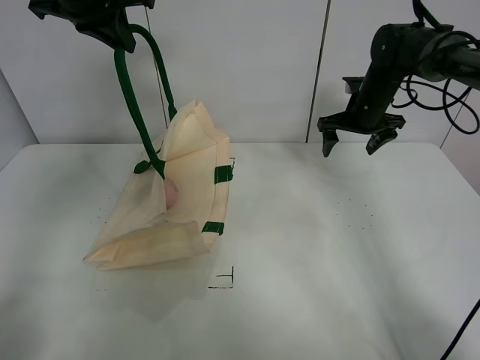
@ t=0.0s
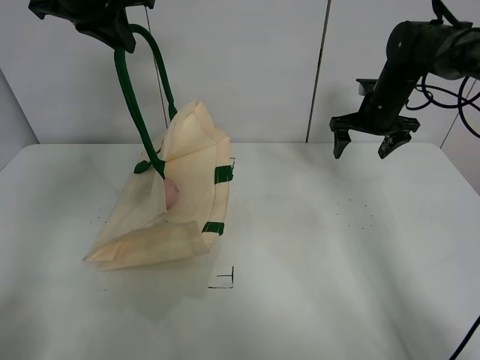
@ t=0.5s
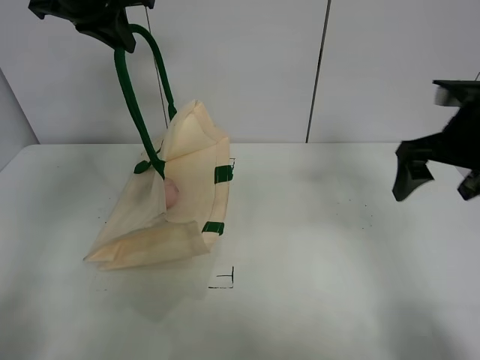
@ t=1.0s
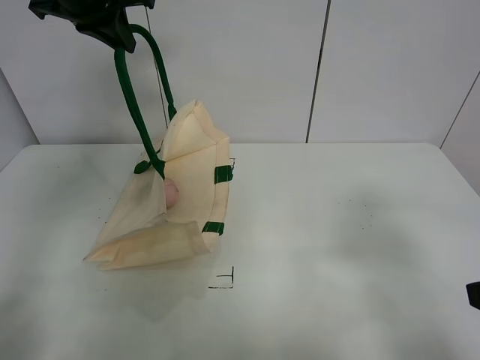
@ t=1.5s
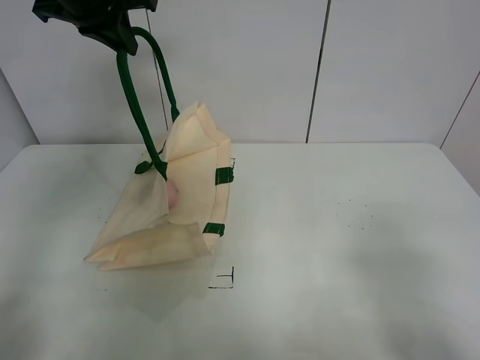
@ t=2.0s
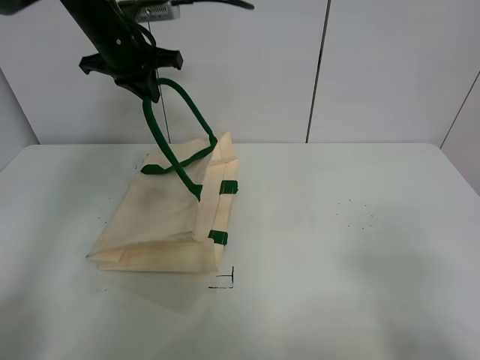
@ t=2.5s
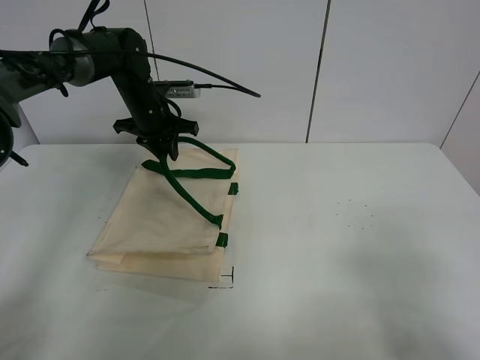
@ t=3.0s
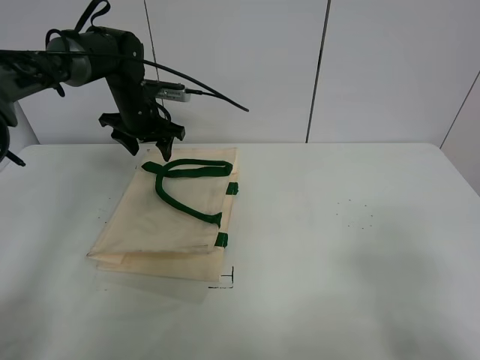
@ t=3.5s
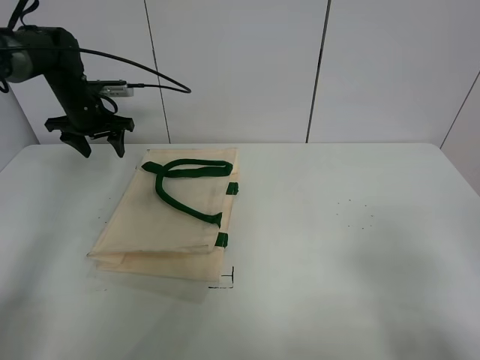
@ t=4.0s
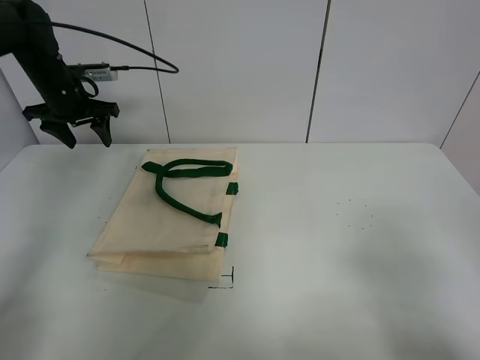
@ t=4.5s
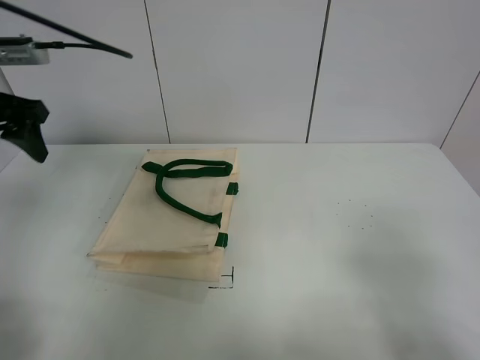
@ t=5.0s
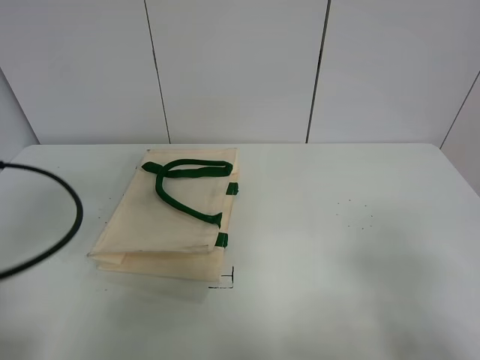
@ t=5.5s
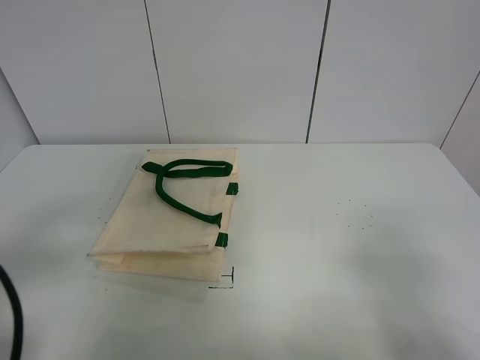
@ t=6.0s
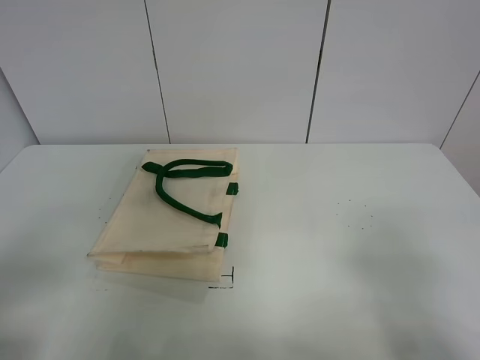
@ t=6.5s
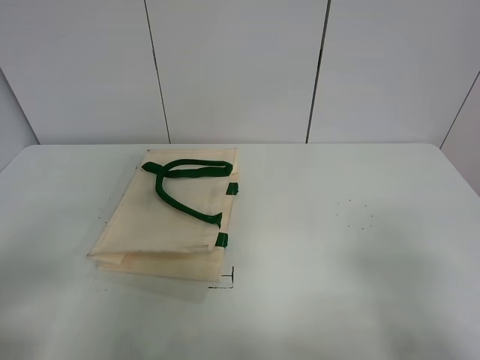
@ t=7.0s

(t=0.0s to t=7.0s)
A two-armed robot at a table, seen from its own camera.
Task of the whole recording: open the white linen bag and put the peach in the bag.
Step, t=0.0s - t=3.0s: Put down the handbag with left gripper.
t=0.0s - t=2.0s: The right gripper shifts about 50 cm backward.
t=2.0s - t=3.5s: The left gripper travels downward and forward by roughly 20 cm, and opens its fingers.
t=3.5s - t=5.0s: The left gripper heads backward, to the left and upward, covering about 25 cm.
t=5.0s - t=7.0s: The left gripper travels backward by approximately 30 cm.
